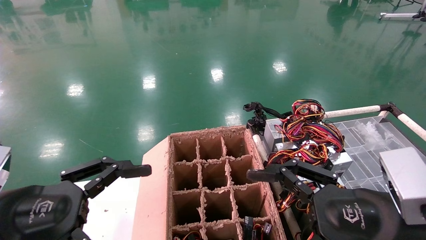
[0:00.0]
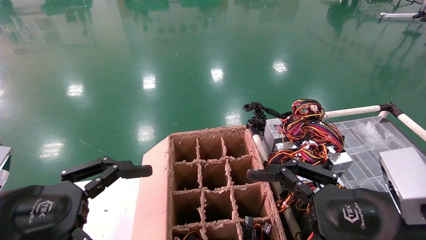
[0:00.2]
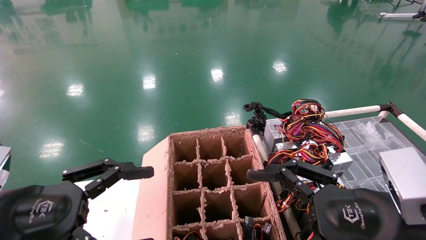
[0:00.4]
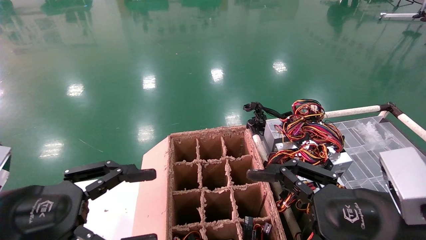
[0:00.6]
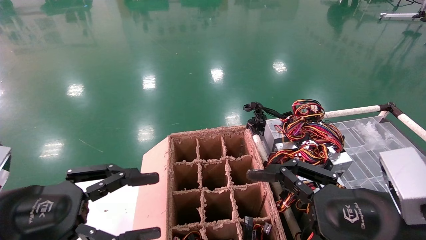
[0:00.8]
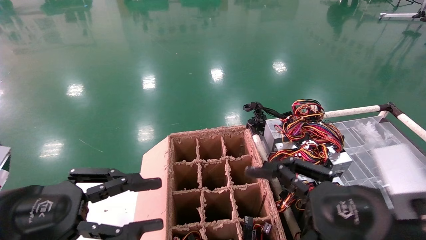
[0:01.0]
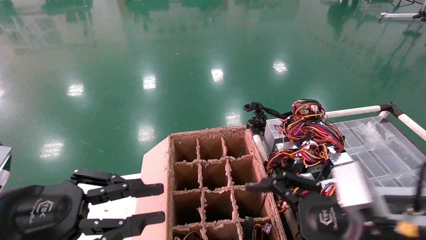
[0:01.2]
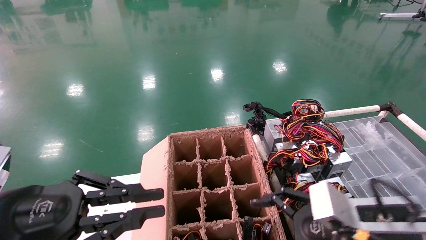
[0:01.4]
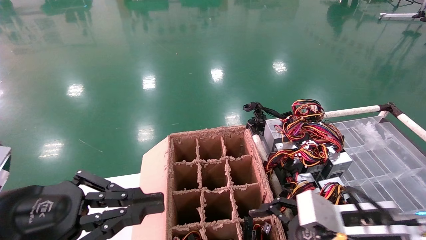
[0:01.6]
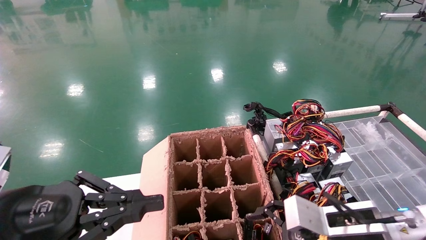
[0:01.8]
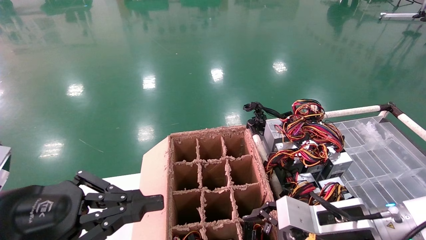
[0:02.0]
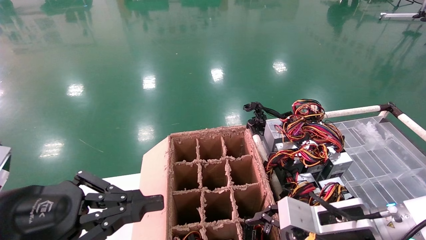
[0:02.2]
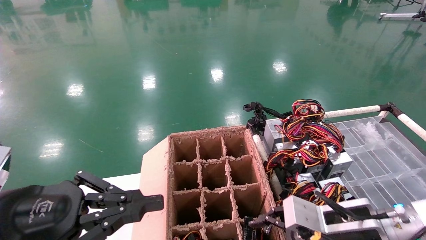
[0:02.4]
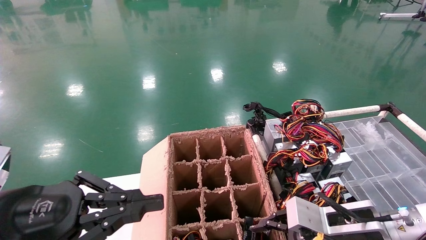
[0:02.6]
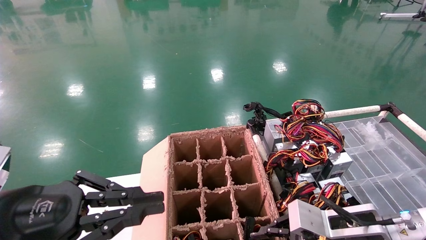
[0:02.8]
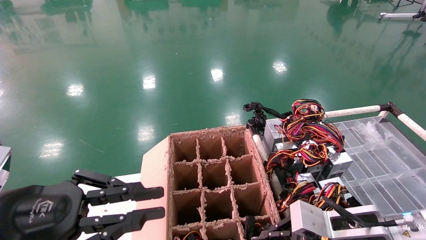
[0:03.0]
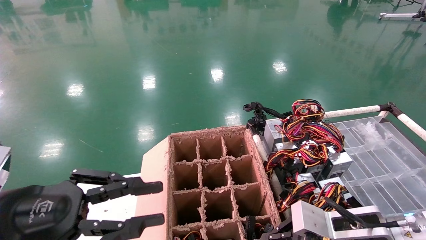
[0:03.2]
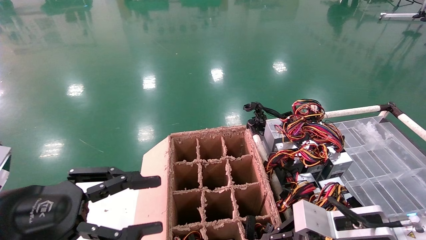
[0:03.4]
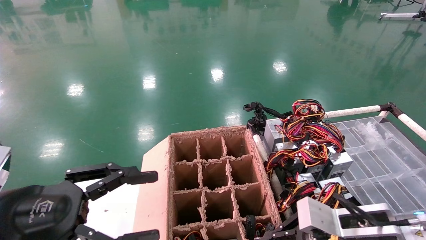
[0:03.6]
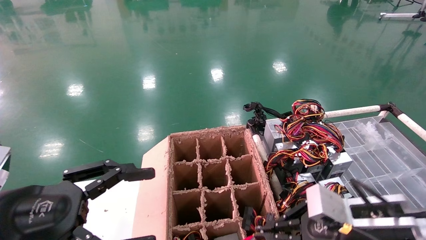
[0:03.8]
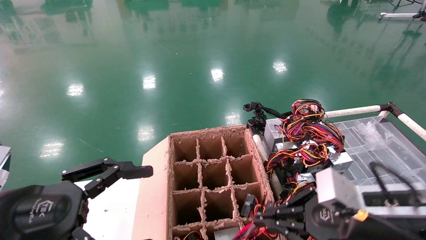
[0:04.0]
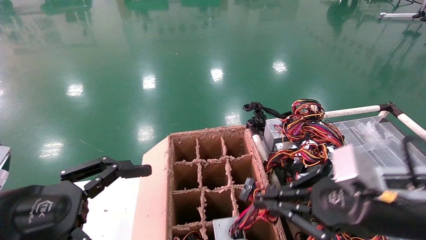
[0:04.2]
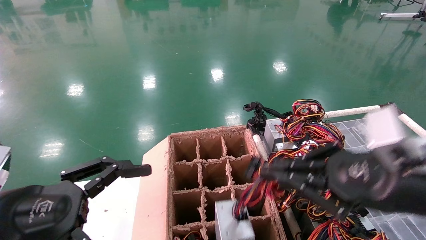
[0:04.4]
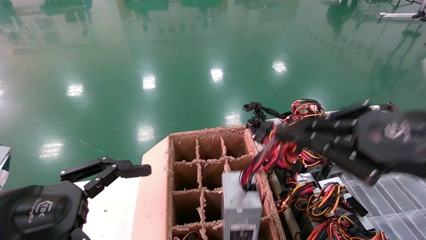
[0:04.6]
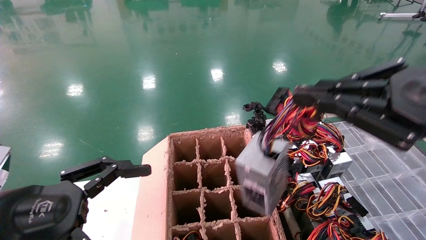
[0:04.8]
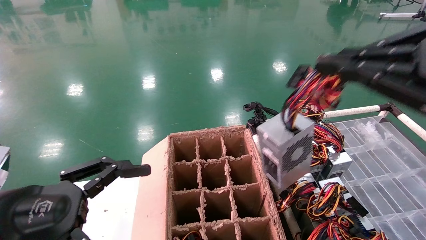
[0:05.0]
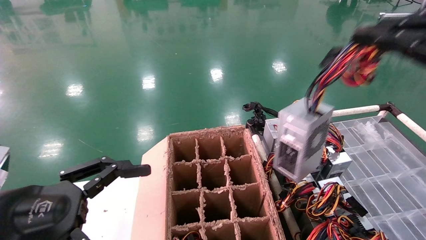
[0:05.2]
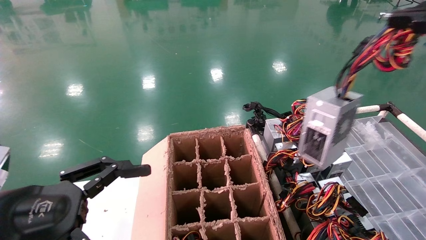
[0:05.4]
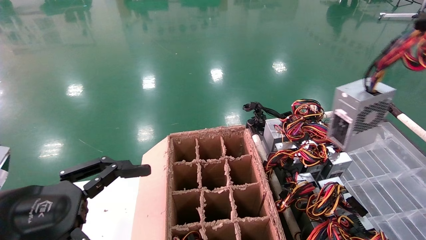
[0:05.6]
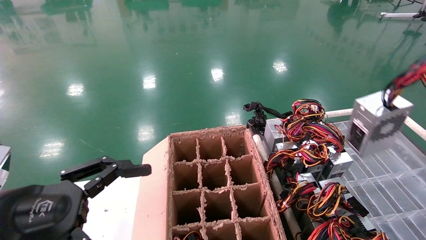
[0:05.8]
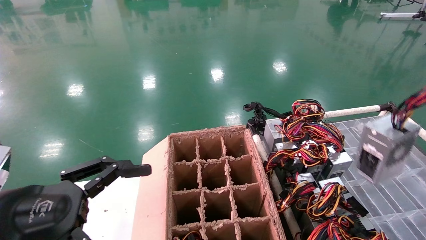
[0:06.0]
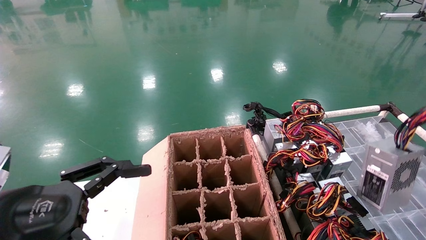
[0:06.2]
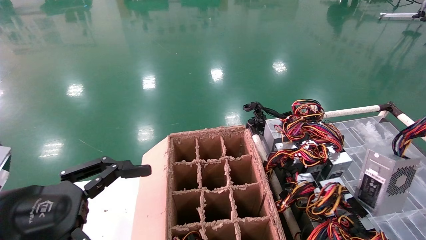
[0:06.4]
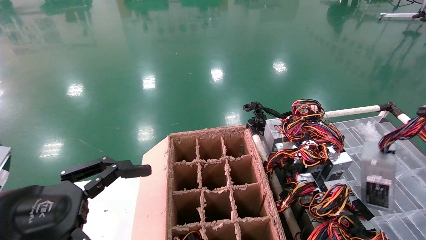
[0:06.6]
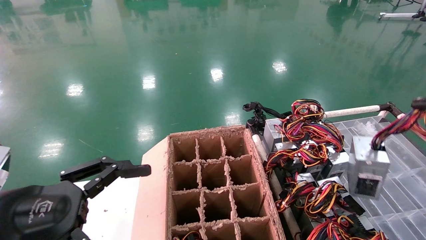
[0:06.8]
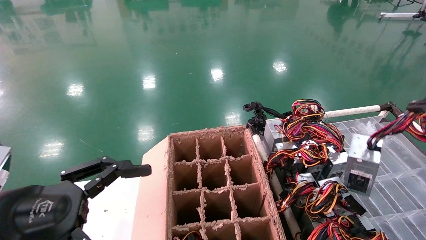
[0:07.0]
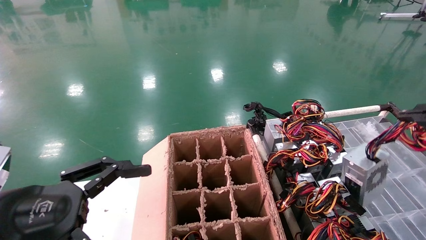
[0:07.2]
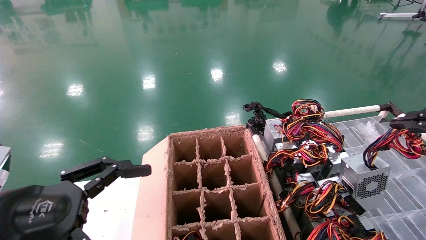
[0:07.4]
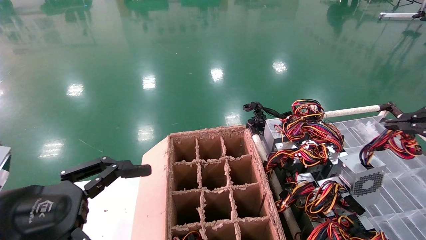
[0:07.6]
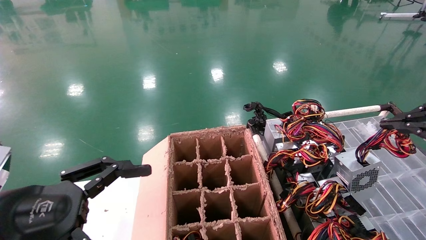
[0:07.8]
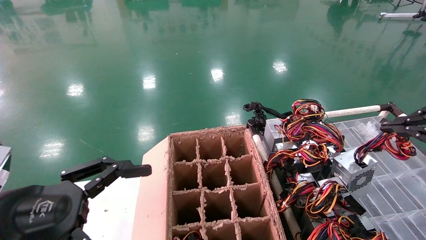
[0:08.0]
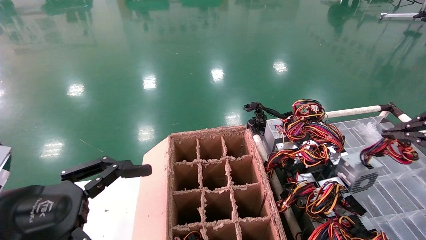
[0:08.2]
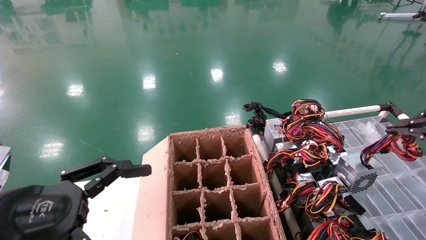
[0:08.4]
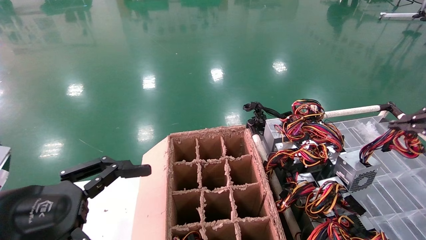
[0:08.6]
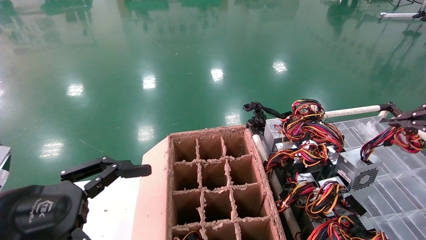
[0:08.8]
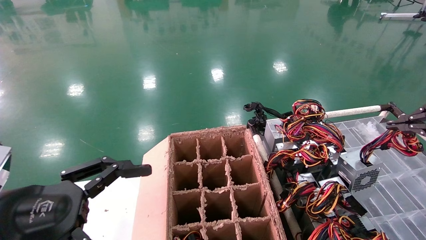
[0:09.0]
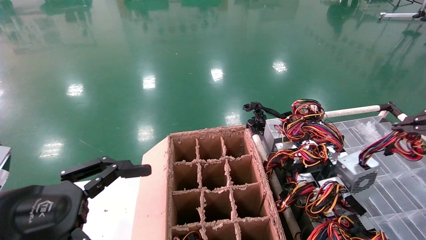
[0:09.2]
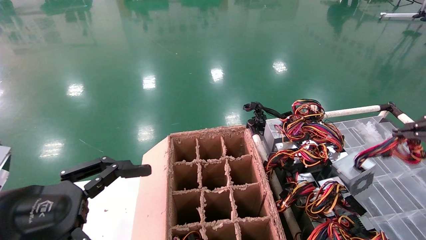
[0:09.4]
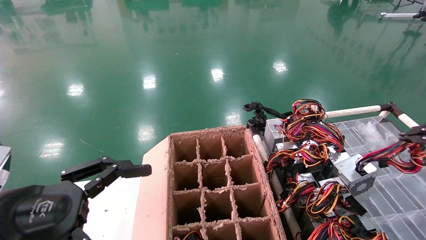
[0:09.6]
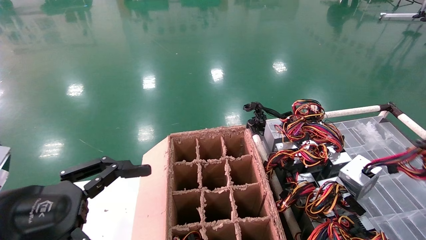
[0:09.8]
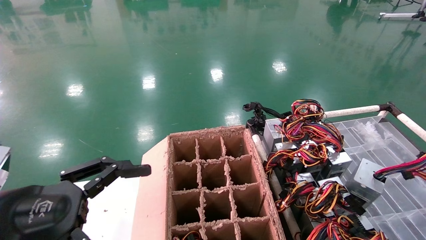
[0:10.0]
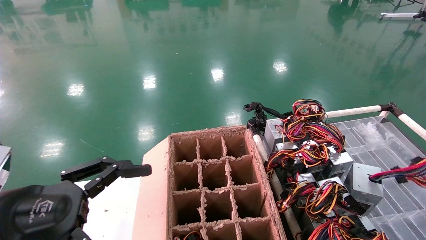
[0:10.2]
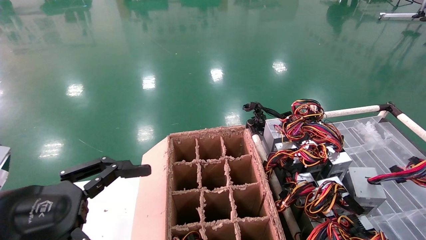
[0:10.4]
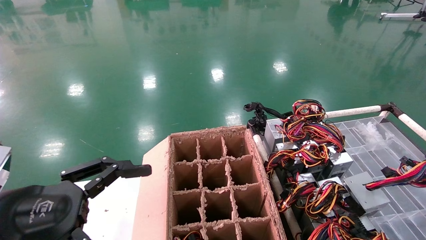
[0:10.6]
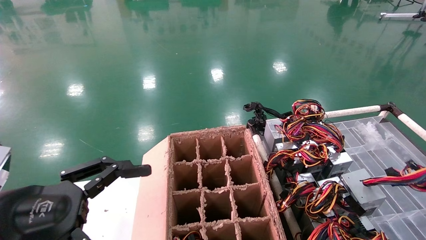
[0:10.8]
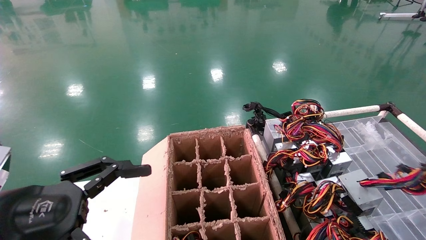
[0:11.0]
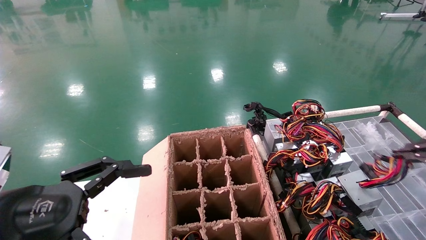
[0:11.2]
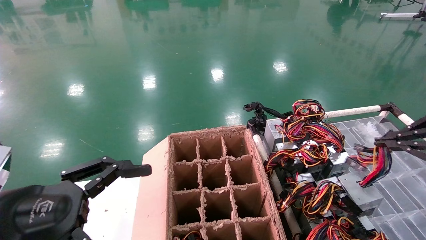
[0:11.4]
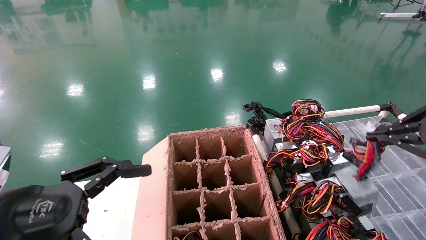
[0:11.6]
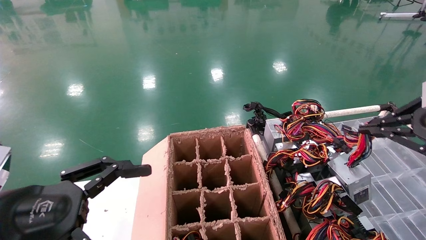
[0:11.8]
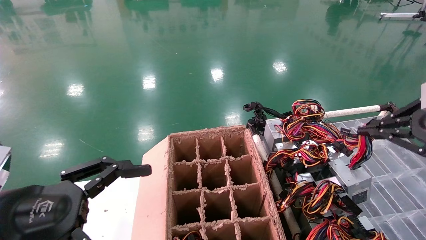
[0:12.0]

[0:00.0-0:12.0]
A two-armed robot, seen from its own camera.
Step, 0:01.8 to 0:03.6: Grab and lift the power supply from the large box.
0:00.0 to 0:01.6: The left gripper closes up. Meanwhile the right gripper shifts some 10 cm forward and downward.
0:01.6 to 0:03.0: The right gripper closes.
0:03.0 to 0:04.4: The right gripper moves upward and backward, about 15 cm. The left gripper opens up.
0:04.4 to 0:06.0: The right gripper moves to the right and upward, about 20 cm.
0:06.0 to 0:07.6: The right gripper moves forward, approximately 10 cm.
0:07.6 to 0:09.0: The grippers move only a little.
0:09.0 to 0:10.4: The grippers make only small movements.
0:10.4 to 0:12.0: The right gripper travels to the left by approximately 5 cm.

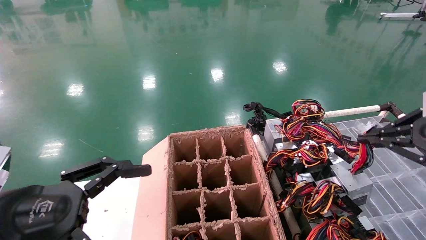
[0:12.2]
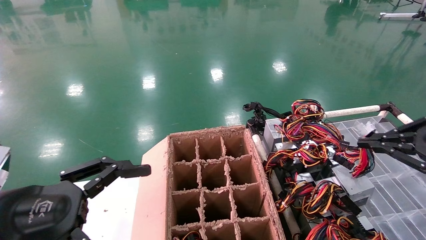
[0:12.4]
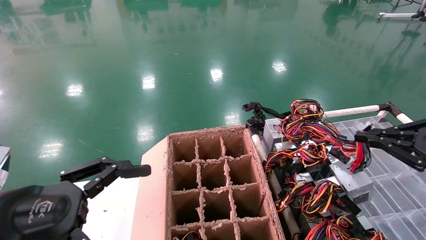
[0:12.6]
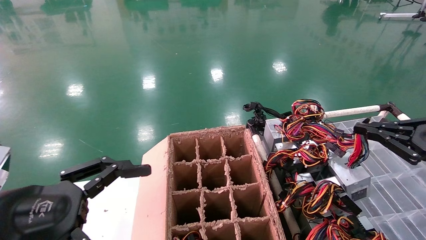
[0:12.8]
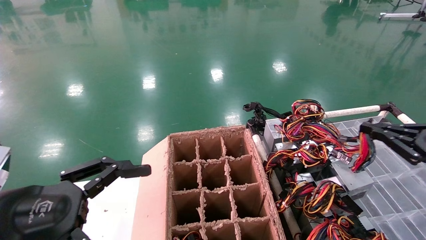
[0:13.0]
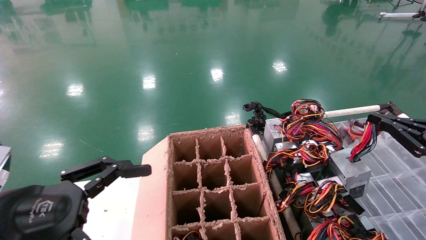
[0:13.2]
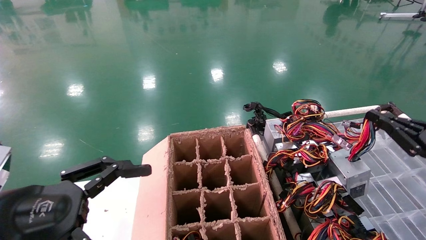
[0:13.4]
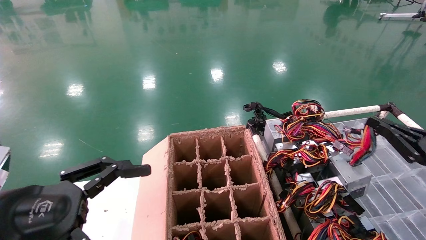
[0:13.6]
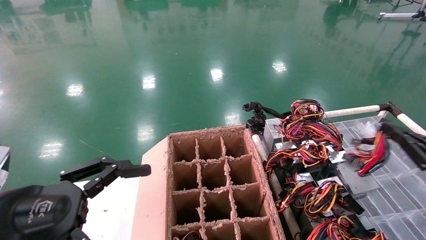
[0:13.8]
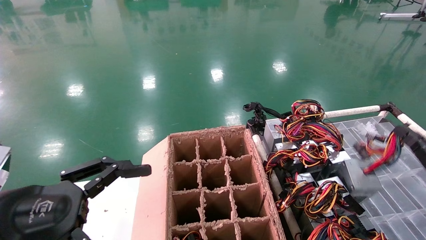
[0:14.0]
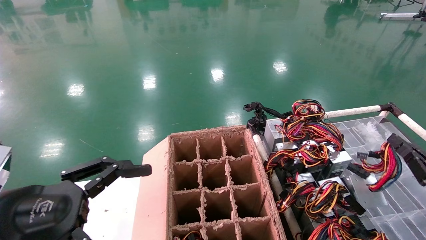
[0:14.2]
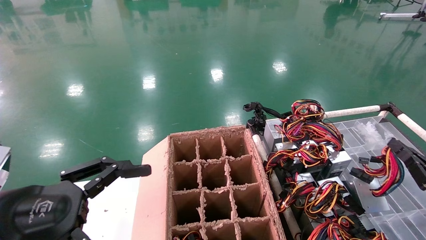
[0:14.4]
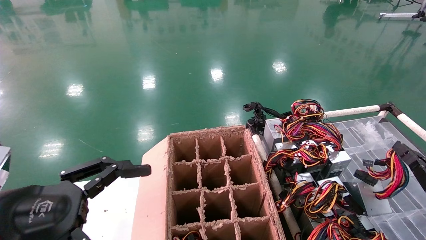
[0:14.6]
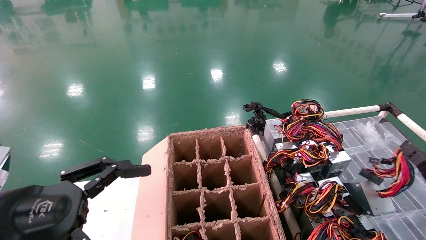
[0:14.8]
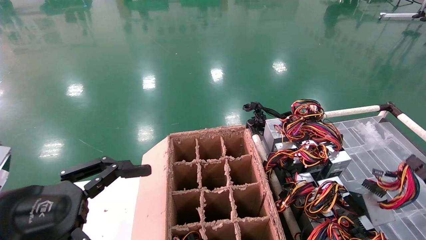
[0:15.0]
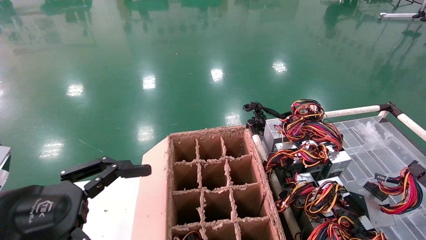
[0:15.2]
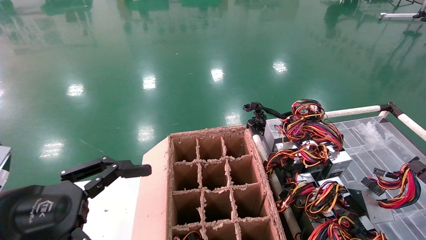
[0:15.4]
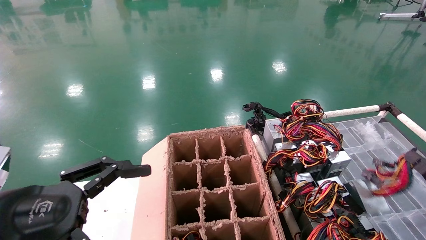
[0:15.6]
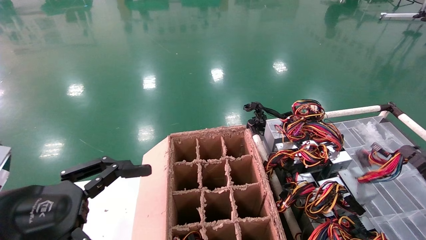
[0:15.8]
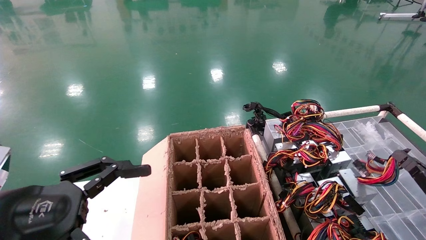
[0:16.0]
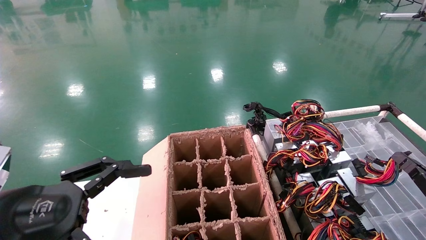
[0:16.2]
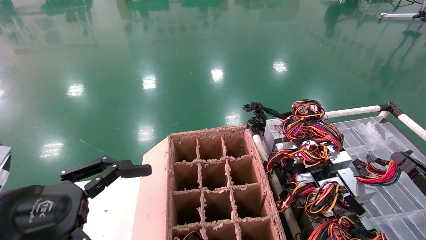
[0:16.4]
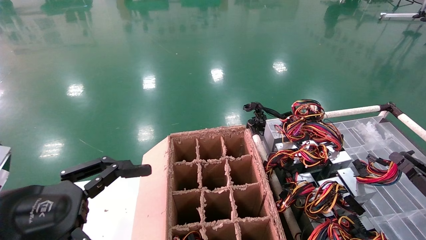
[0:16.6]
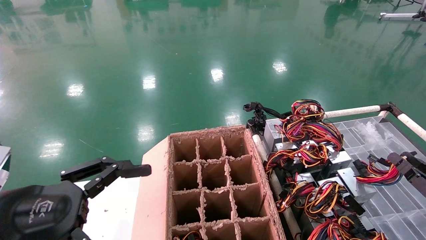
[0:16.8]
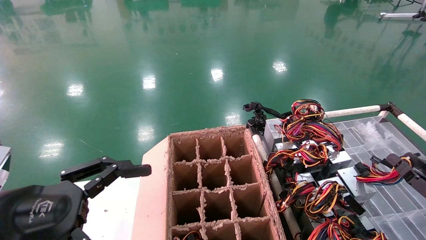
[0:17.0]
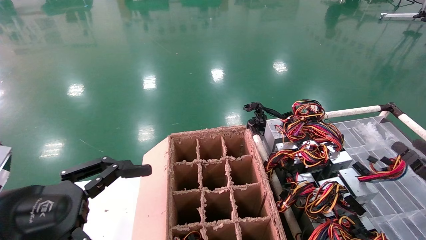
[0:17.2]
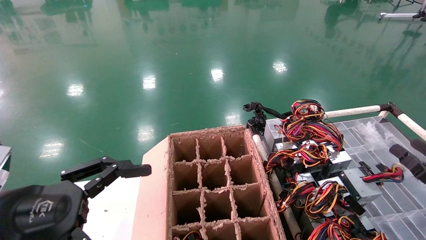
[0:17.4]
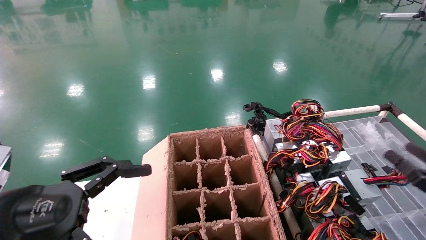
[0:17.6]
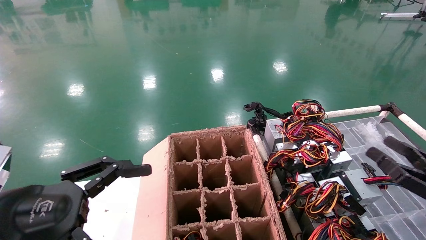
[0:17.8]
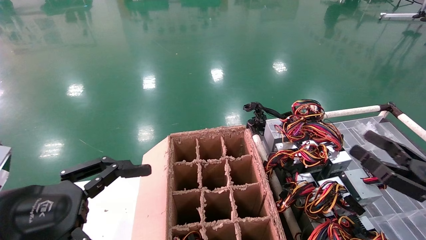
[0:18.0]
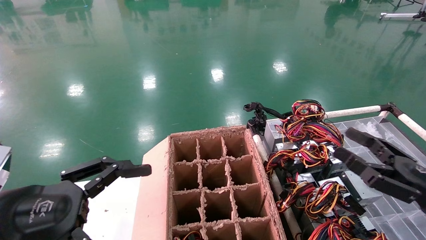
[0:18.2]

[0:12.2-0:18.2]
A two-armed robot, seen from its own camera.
Step, 0:12.2 to 0:16.4: Place the power supply on the operating table.
0:12.2 to 0:13.8: The right gripper moves downward, approximately 15 cm.
0:13.8 to 0:15.2: The right gripper is displaced downward by about 10 cm.
0:15.2 to 0:16.6: The grippers stay close to where they were, moving slightly.
0:16.6 to 0:18.2: The right gripper shifts approximately 15 cm to the left and upward, and opens its fingers.
